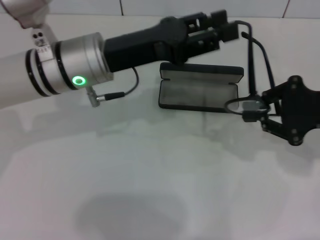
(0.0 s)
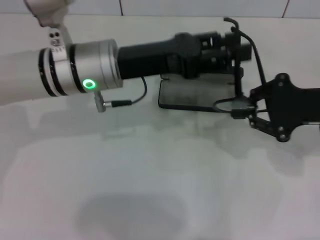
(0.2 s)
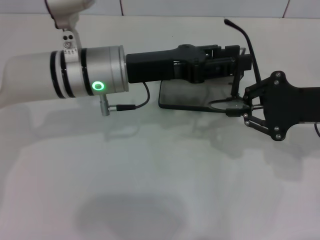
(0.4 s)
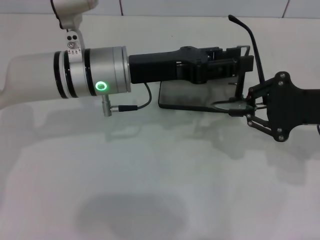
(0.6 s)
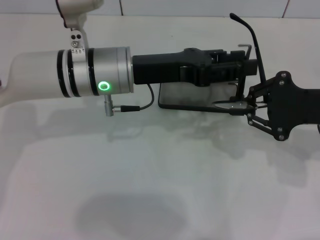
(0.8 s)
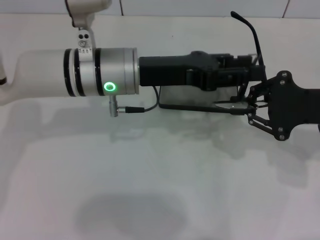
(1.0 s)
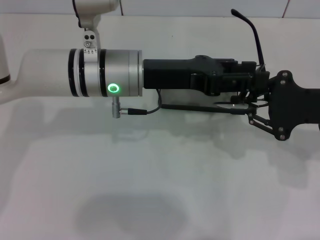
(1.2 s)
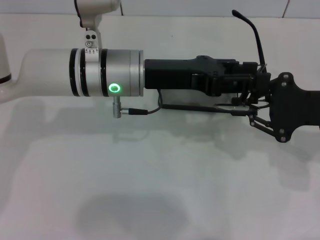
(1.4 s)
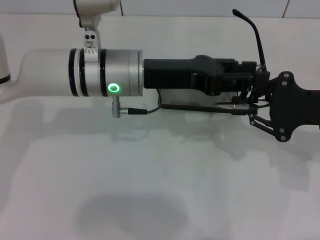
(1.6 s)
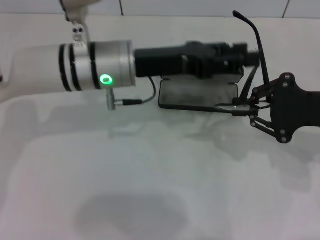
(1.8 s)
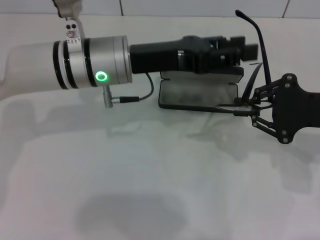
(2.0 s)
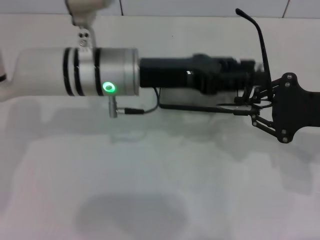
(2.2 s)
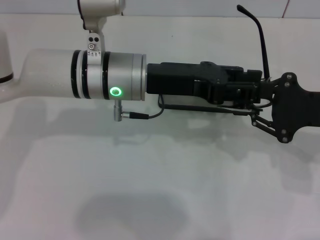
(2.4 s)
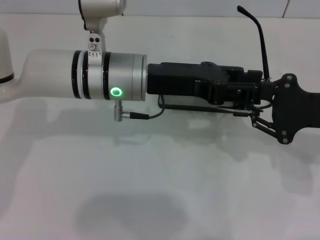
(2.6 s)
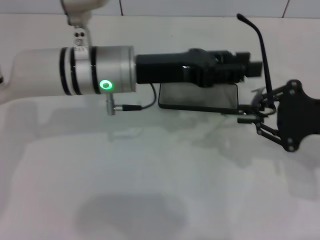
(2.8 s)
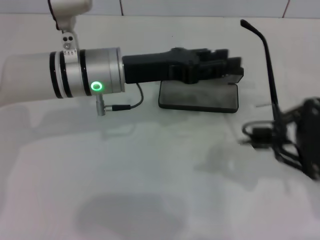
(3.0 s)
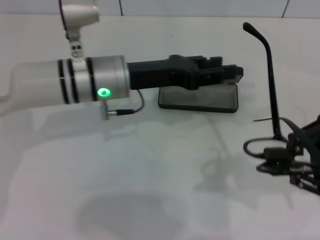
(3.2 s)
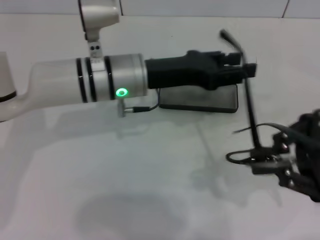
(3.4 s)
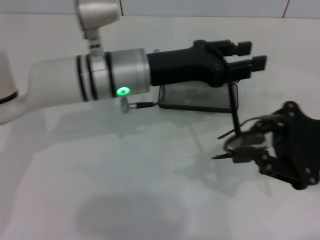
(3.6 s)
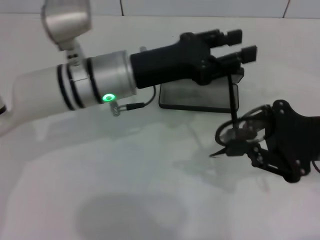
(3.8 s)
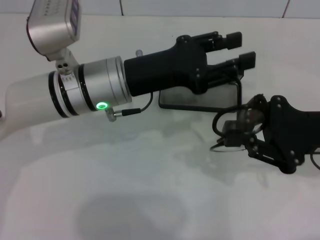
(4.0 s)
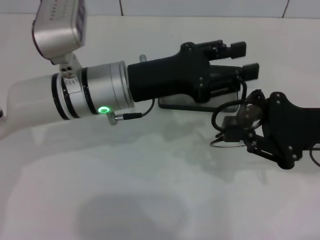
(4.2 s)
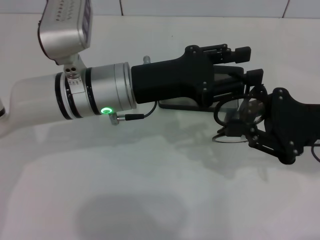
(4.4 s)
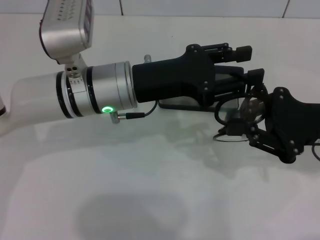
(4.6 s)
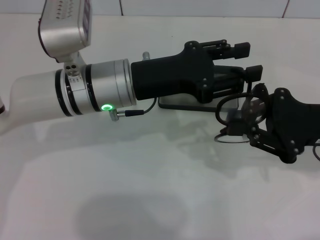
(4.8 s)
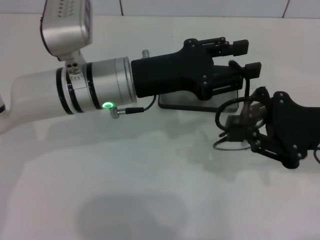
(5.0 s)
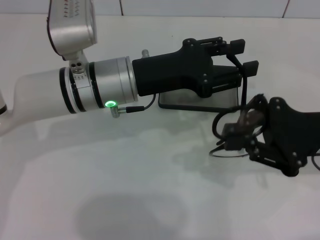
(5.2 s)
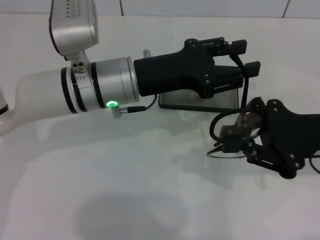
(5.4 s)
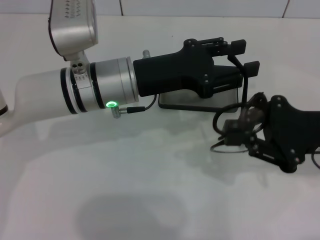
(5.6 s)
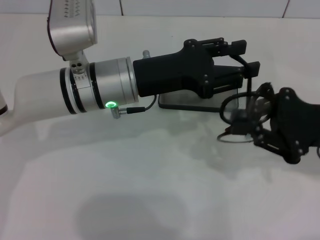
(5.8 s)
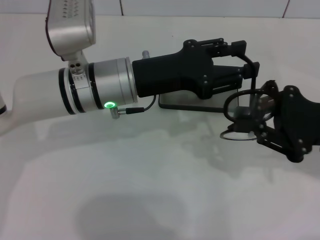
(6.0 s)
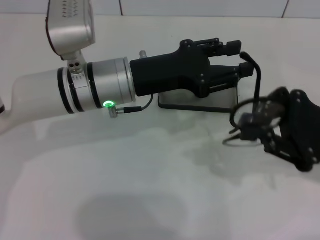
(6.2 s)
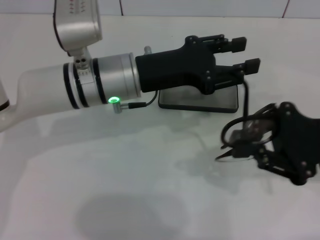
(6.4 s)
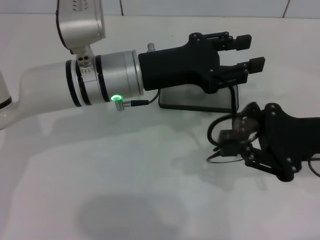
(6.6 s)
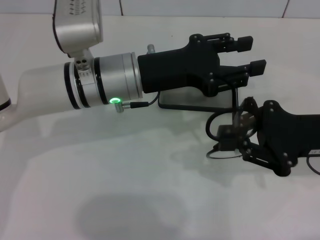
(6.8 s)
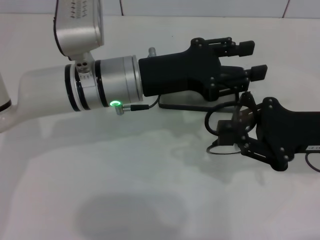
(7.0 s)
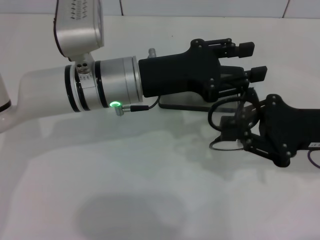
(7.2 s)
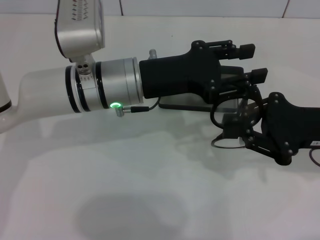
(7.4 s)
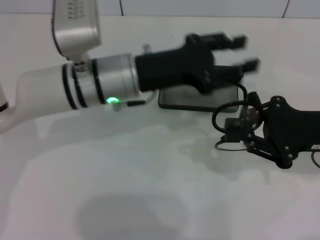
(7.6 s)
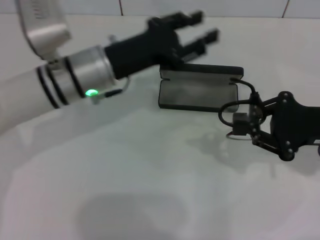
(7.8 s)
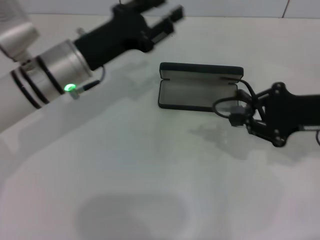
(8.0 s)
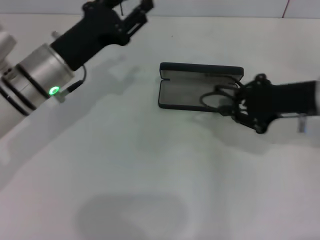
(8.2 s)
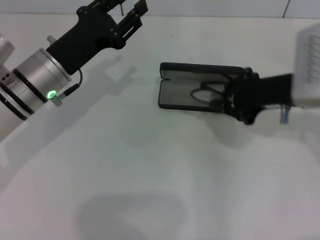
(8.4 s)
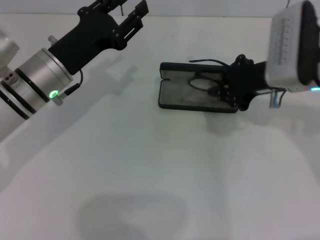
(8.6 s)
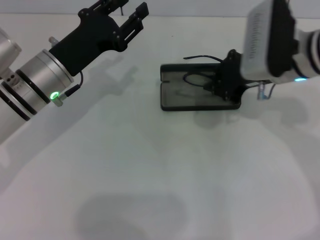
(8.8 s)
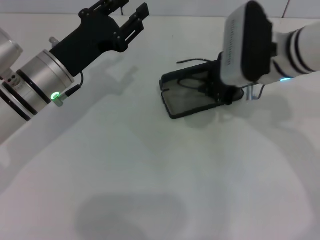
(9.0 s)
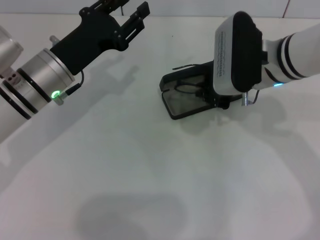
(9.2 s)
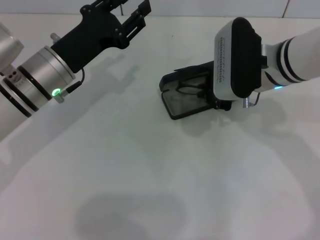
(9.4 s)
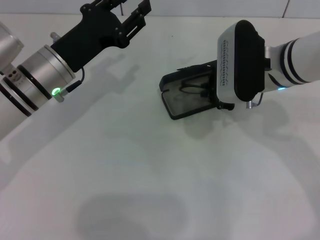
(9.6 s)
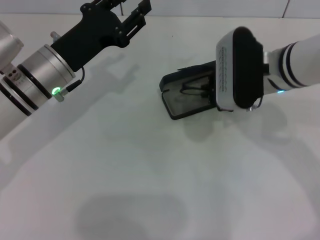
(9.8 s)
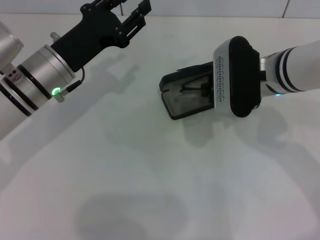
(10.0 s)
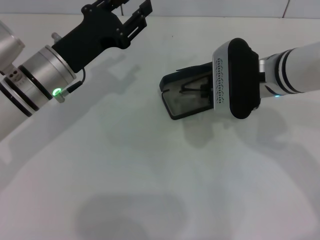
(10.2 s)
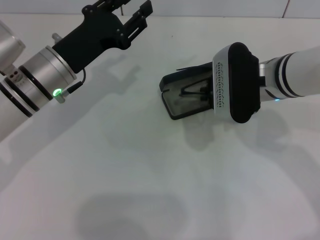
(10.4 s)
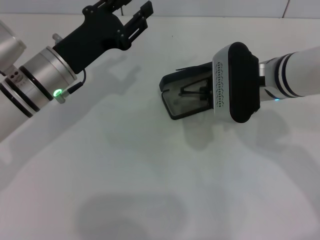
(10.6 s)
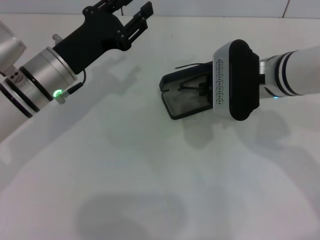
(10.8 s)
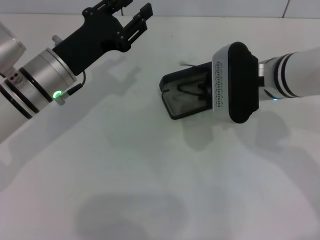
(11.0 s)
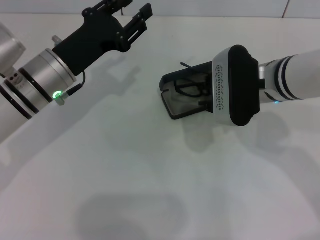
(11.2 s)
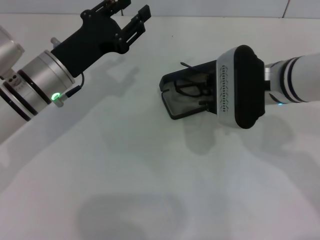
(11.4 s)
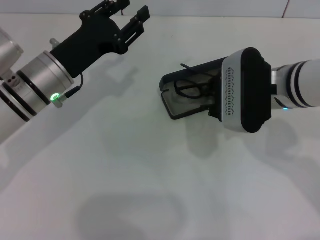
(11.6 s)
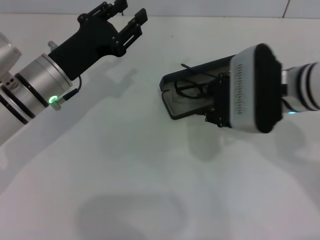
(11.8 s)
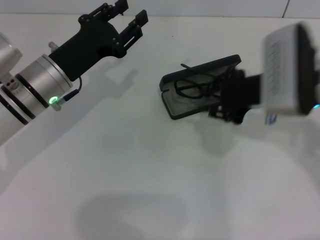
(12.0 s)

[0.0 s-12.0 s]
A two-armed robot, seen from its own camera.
Step, 0.0 to 4.8 s: Fold the frame with your left hand.
4.4 to 7.6 s: The grippers make only small movements.
7.6 to 9.0 s: The left gripper travels to the left by approximately 10 cm; the right gripper travels to the left and forward by about 15 cm.
9.0 to 10.4 s: The grippers stay close to where they were, moving slightly.
10.4 to 12.0 s: The right gripper shifts by roughly 5 cm.

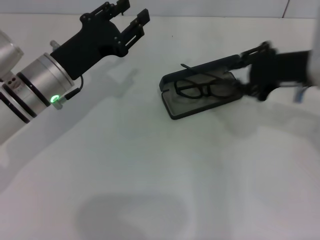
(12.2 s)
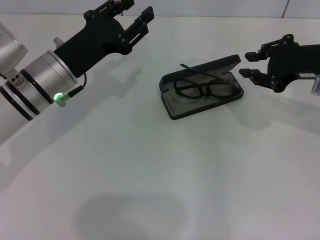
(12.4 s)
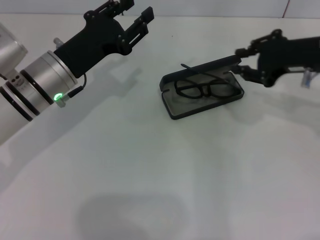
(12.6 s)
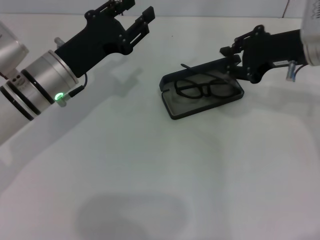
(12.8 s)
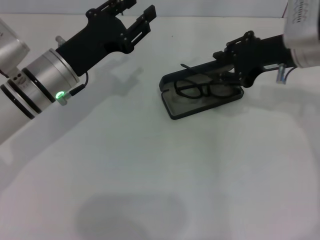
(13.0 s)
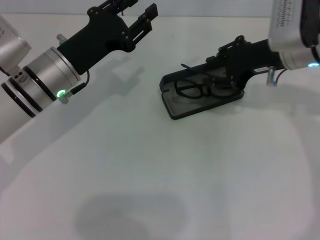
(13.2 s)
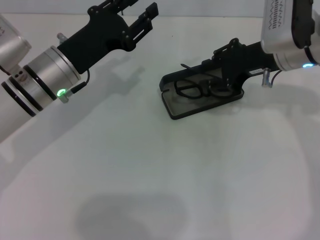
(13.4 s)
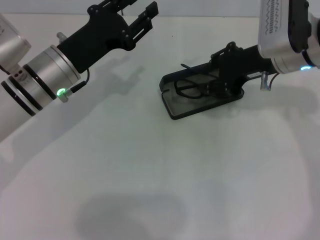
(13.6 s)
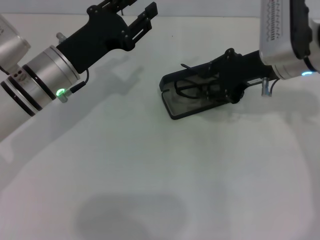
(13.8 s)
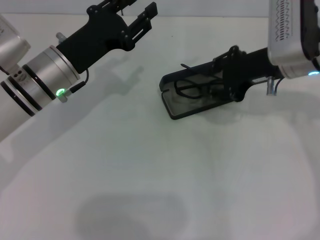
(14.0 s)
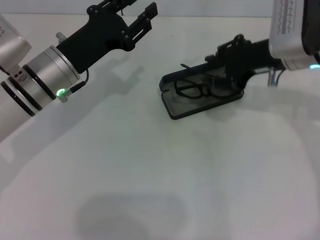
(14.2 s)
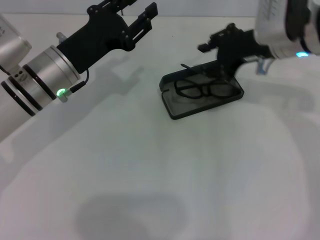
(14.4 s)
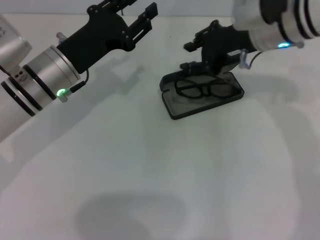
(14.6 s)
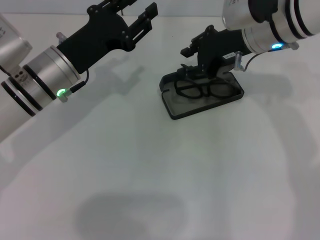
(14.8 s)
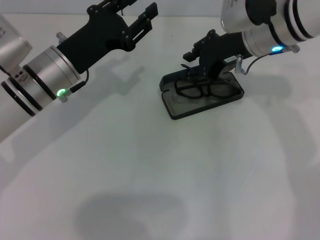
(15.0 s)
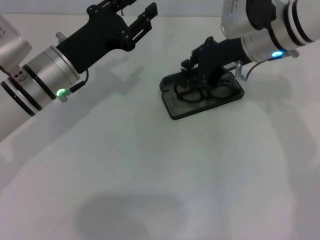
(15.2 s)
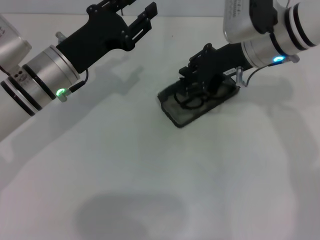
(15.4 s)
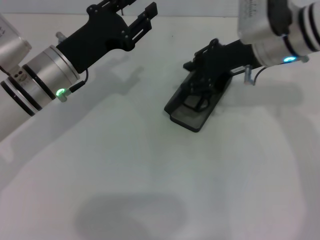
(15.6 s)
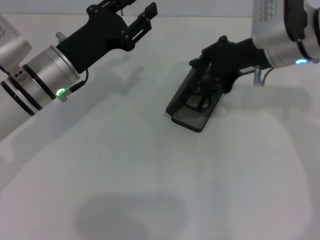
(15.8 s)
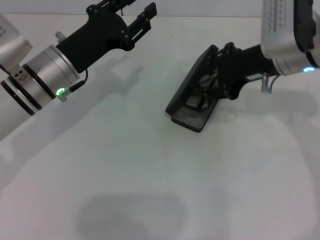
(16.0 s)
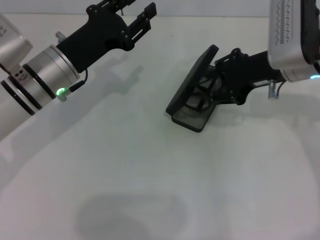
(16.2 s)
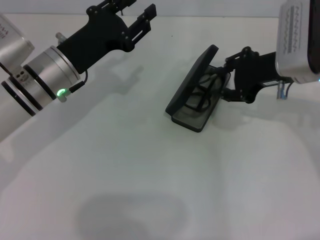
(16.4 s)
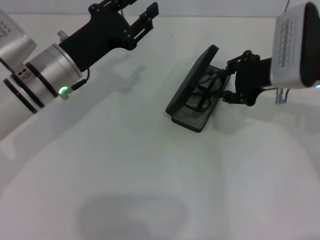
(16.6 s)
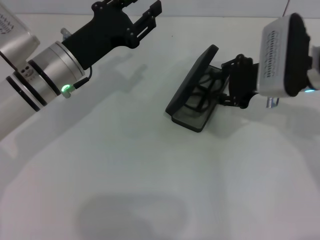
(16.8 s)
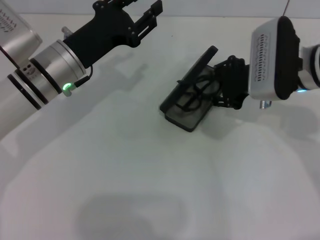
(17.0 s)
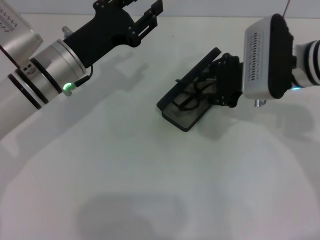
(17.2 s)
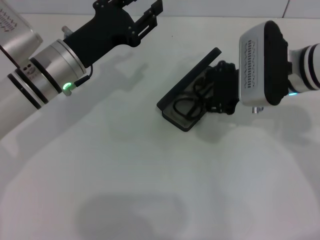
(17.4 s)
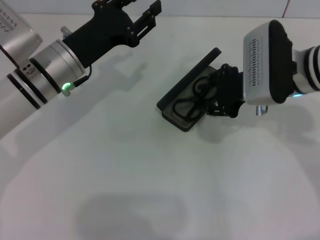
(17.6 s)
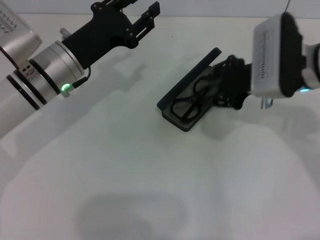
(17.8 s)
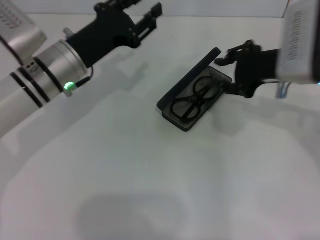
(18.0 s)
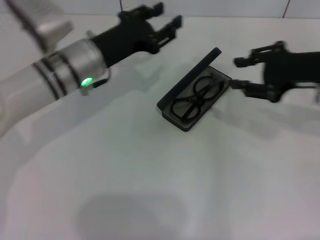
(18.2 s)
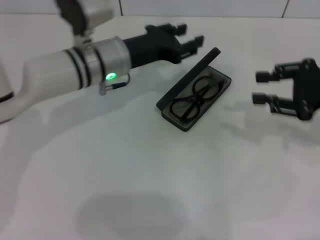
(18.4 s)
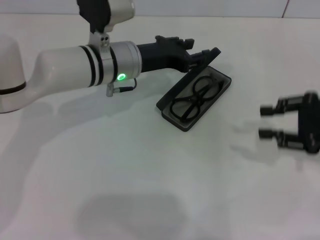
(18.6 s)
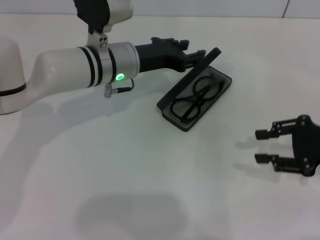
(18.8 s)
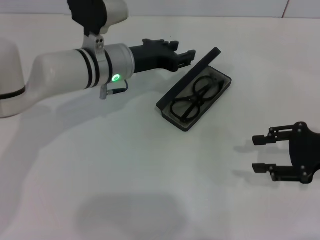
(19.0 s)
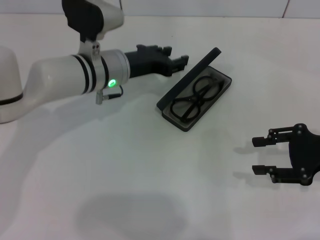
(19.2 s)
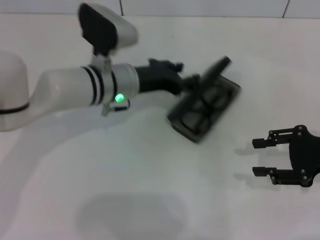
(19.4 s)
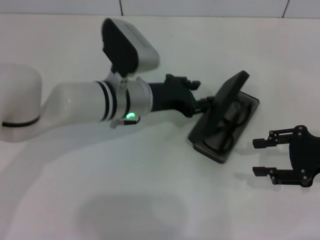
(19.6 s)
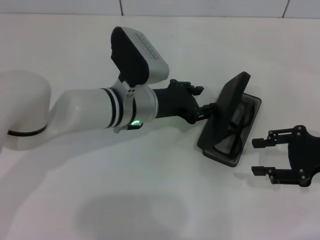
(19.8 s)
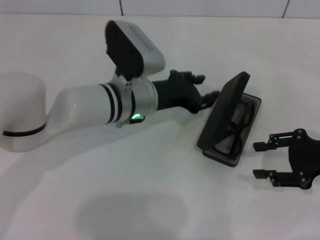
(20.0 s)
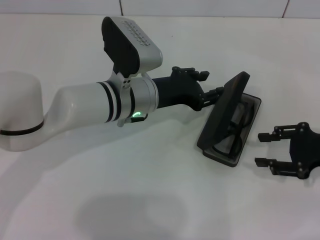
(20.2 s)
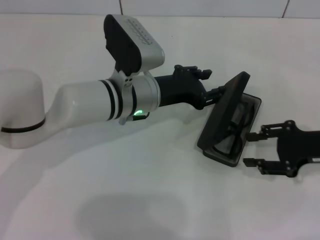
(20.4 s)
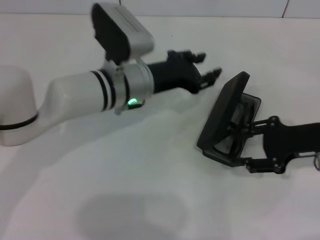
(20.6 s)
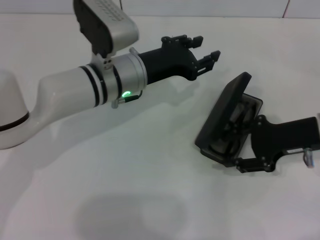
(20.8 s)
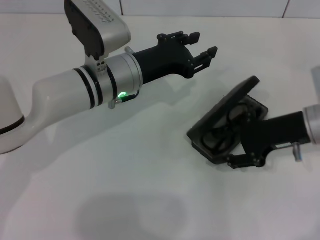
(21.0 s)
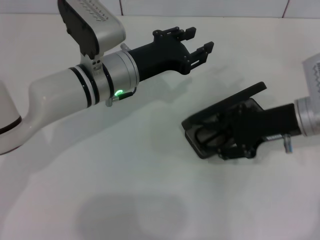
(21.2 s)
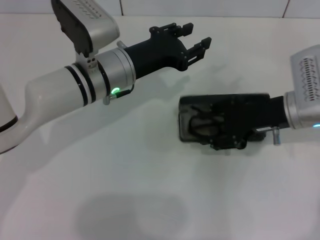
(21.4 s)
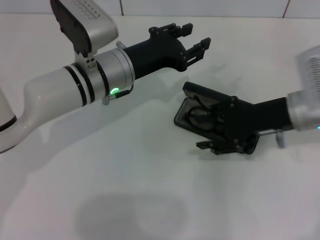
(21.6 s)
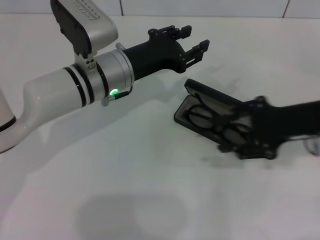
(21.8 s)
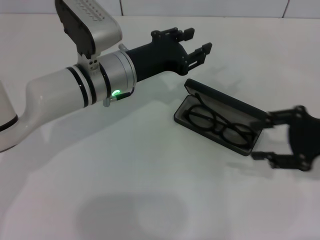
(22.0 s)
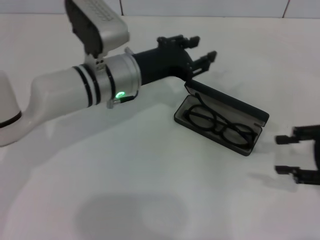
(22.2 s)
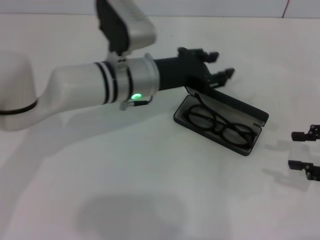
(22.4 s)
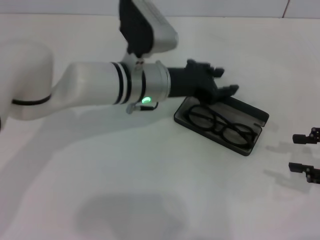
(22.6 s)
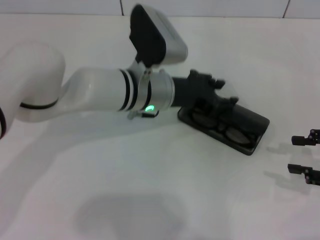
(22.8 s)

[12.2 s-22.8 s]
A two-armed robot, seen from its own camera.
12.2 to 13.8 s: The right gripper moves some 5 cm.
13.8 to 15.2 s: The grippers make only small movements.
15.2 to 16.8 s: The right gripper ends up some 5 cm from where it was.
16.8 to 18.2 s: The right gripper shifts roughly 5 cm to the right.
18.2 to 19.8 s: The right gripper is displaced downward and backward by roughly 10 cm, while the left gripper moves to the right, roughly 5 cm.
19.8 to 21.2 s: The right gripper goes roughly 10 cm to the left and forward.
21.2 to 22.8 s: The left gripper shifts by roughly 5 cm, while the right gripper shifts some 15 cm to the right and backward.
